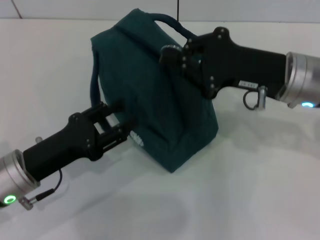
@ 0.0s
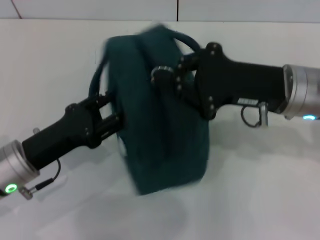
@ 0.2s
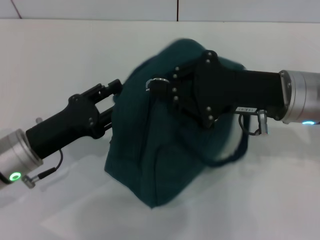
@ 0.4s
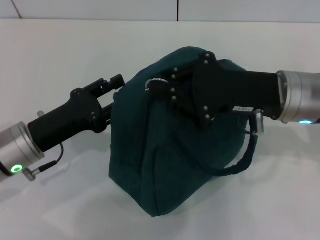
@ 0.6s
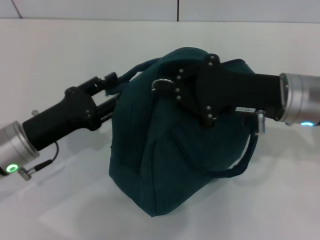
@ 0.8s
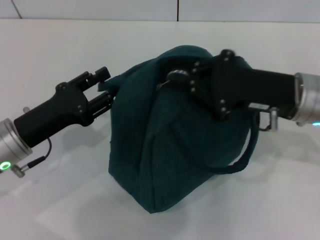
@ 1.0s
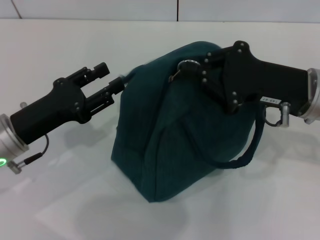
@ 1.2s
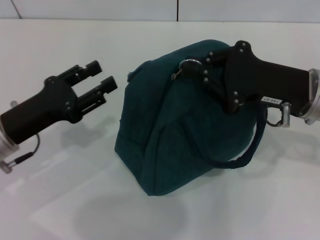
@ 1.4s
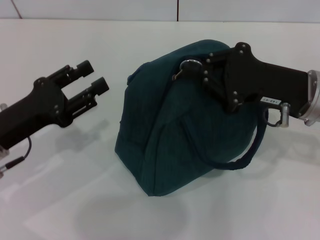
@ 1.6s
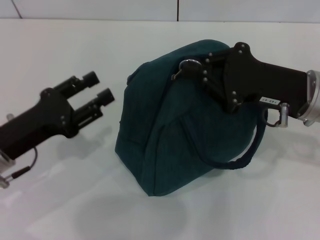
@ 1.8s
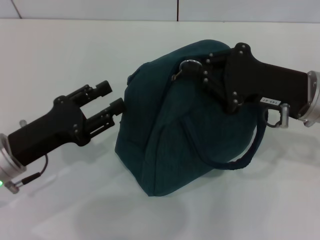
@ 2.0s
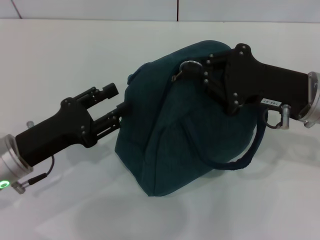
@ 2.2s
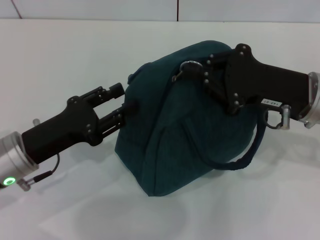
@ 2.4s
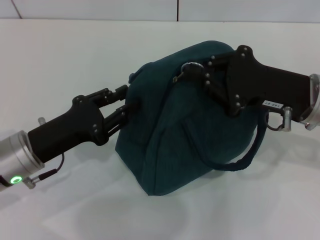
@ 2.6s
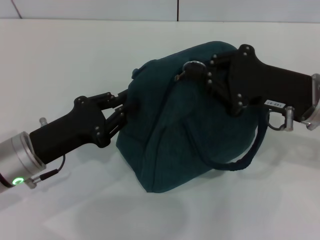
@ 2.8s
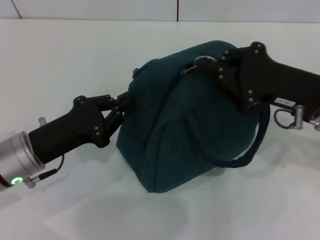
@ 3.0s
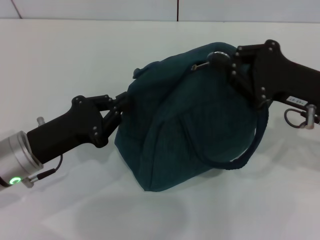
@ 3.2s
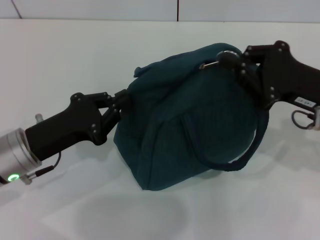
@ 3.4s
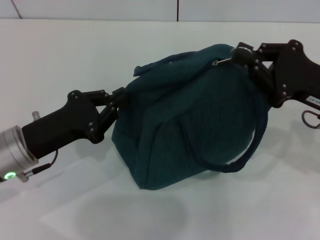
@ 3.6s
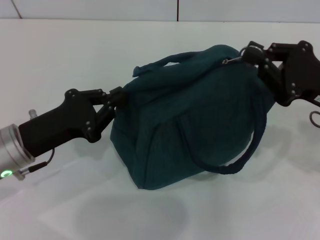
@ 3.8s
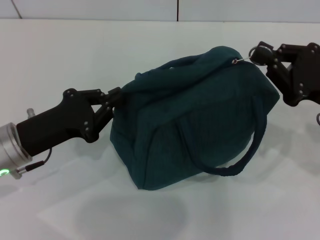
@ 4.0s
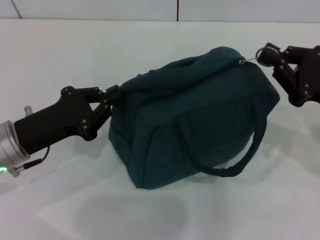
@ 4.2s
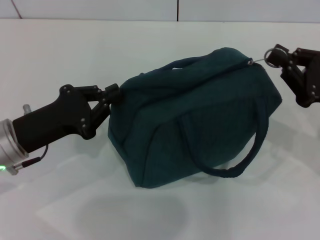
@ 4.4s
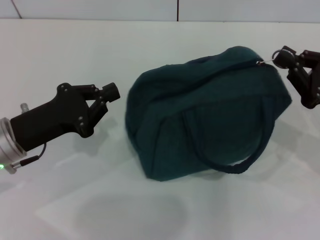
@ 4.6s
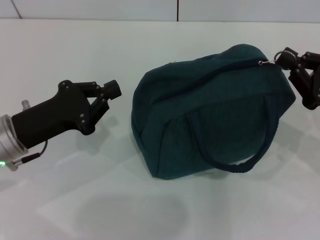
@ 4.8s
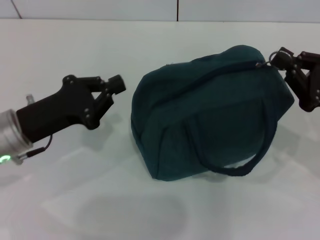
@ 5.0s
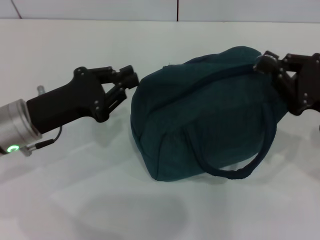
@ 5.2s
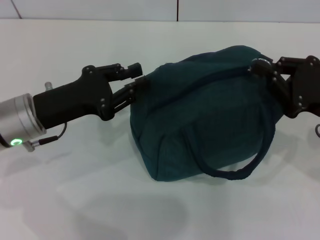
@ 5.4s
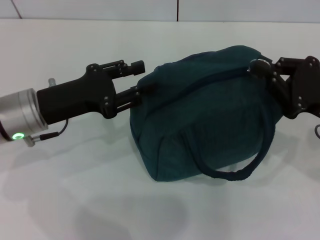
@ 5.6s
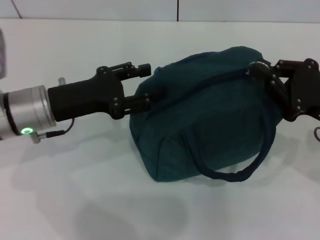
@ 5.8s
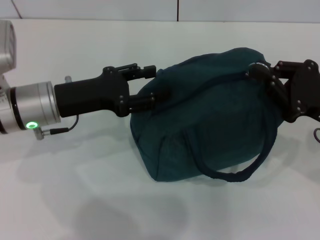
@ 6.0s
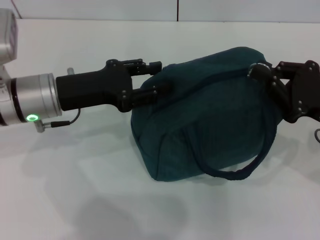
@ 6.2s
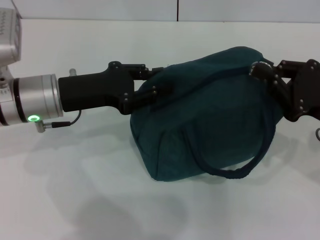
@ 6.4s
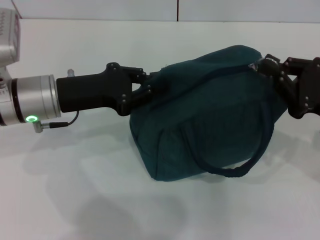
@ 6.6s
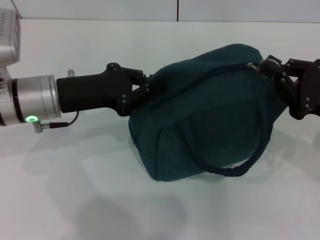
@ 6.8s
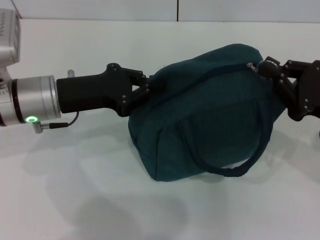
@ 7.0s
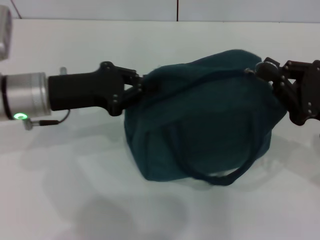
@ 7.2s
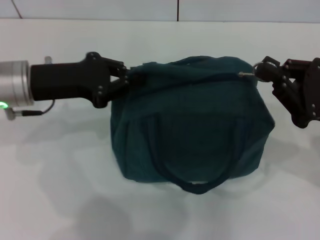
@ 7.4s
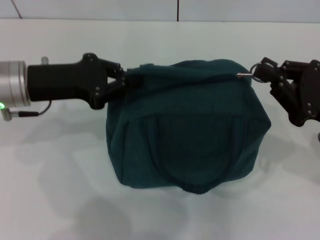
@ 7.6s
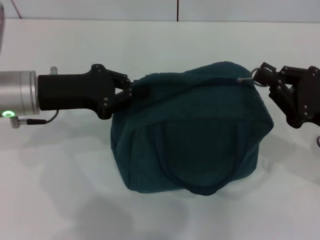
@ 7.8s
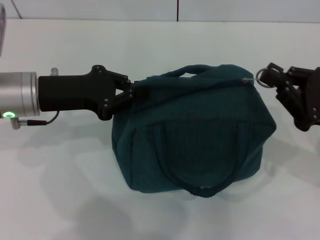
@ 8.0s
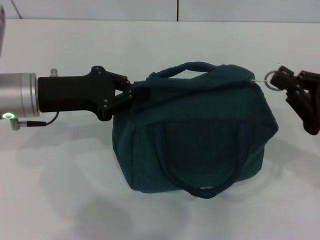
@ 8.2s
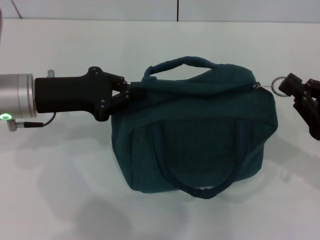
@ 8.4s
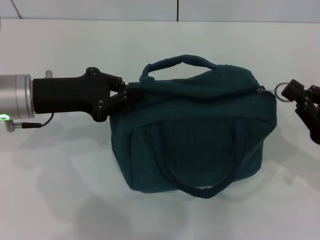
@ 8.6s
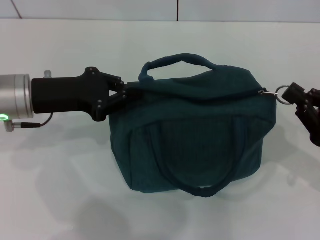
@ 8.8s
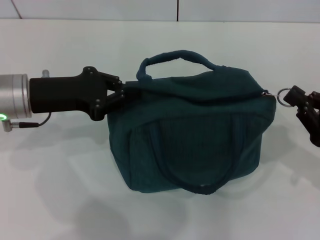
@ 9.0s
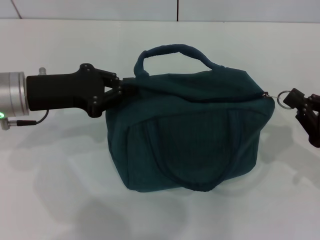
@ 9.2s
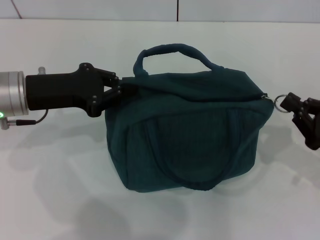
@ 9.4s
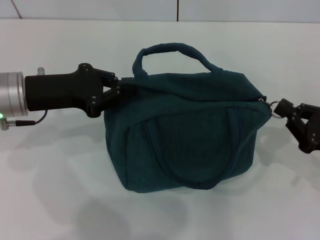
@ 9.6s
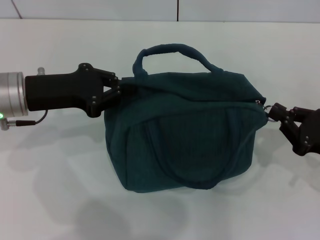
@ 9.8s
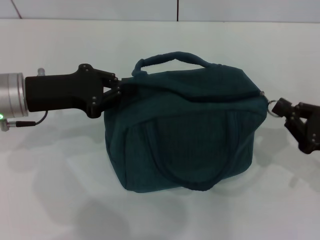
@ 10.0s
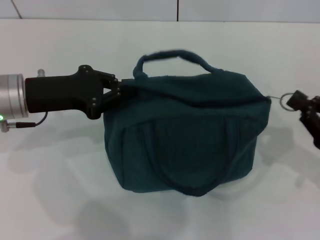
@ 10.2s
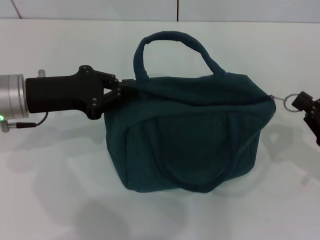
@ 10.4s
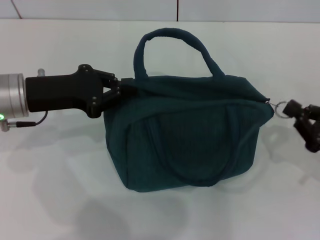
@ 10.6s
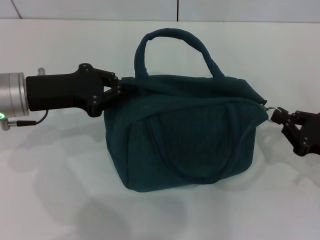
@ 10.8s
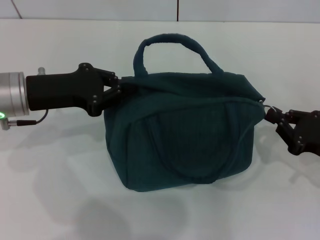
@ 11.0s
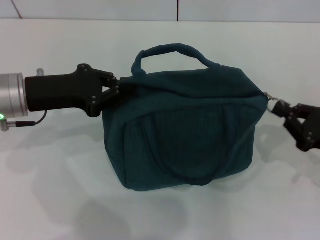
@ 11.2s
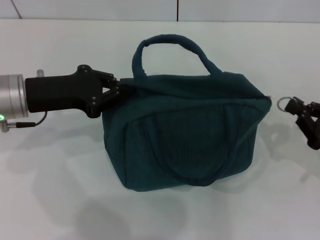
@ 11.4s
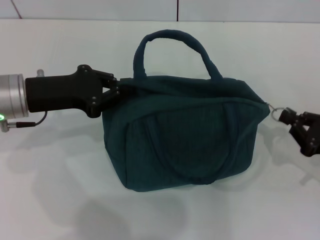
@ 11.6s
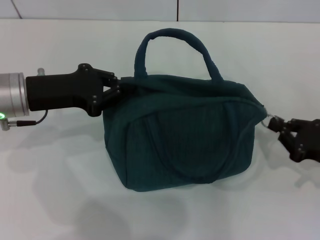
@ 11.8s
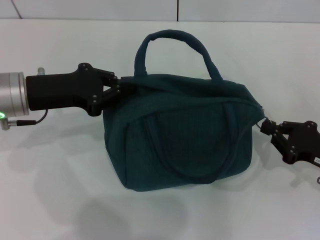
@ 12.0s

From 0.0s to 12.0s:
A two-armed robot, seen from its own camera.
From 0.0s to 1.6s: The left gripper moves some 5 cm.
From 1.6s to 3.0s: The left gripper closes up.
From 3.0s to 4.4s: The right gripper goes some 5 cm to the right.
From 4.4s to 6.0s: The left gripper heads forward, covering approximately 5 cm, and opens.
From 6.0s to 7.6s: The left gripper closes.
From 7.6s to 9.0s: The right gripper ends up approximately 5 cm from where it was.
From 9.0s to 12.0s: The grippers make only small movements.

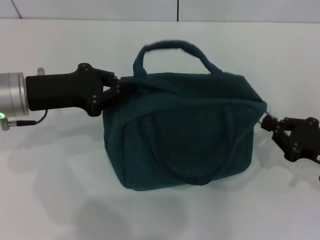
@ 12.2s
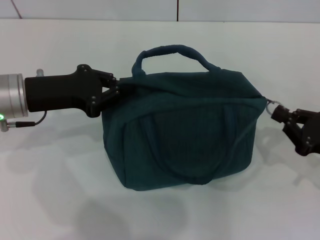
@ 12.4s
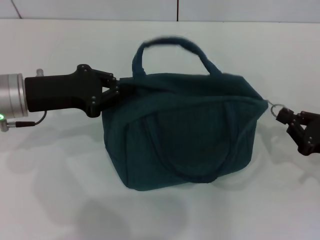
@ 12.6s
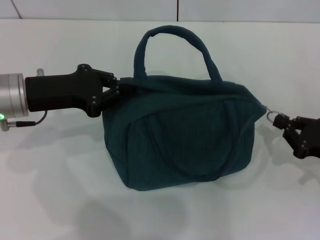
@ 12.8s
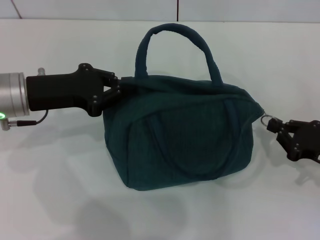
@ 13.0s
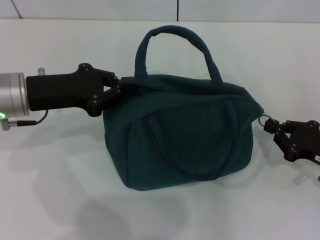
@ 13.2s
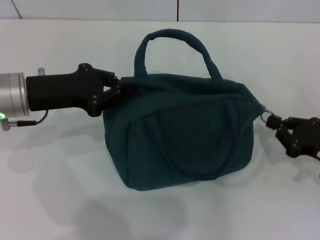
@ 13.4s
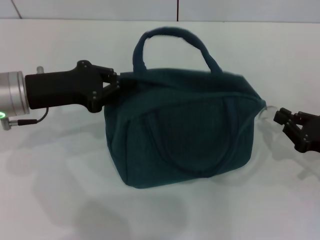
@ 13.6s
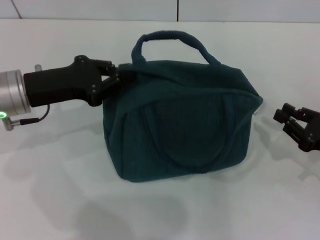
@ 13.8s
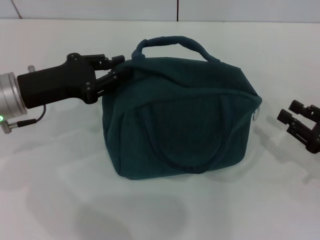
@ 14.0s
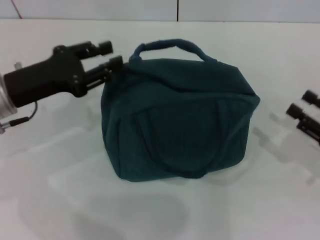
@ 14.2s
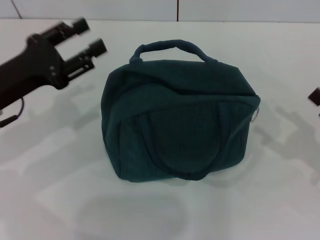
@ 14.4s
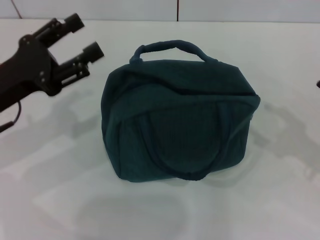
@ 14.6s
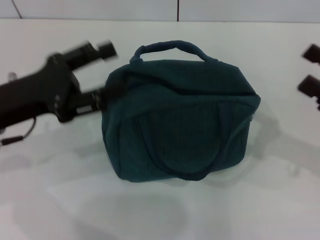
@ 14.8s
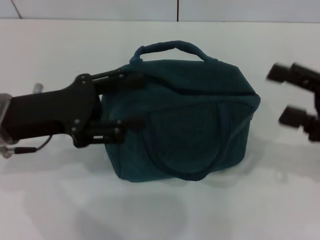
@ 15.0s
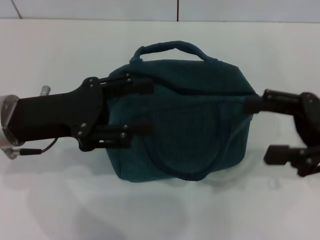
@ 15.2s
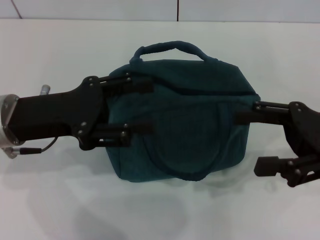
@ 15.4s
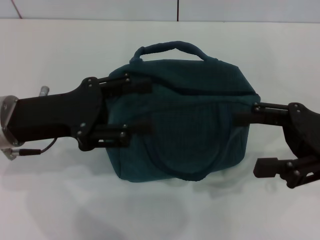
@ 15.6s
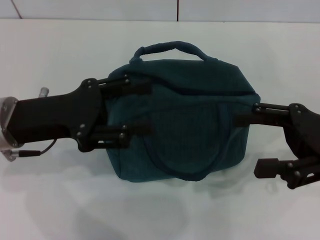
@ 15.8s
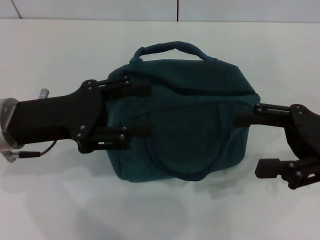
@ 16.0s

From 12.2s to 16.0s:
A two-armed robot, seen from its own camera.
Step, from 13.8s to 14.0s: Hold the lunch bag with your left hand.
From 12.2s to 13.4s: The grippers move only a little.
From 13.4s to 14.8s: The left gripper moves backward, some 5 cm, and opens up; the right gripper travels upward by approximately 10 cm, and opens its fingers.
From 14.8s to 16.0s: The right gripper changes place by about 5 cm.

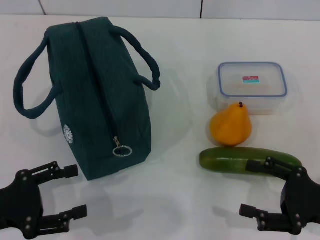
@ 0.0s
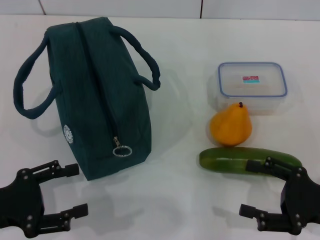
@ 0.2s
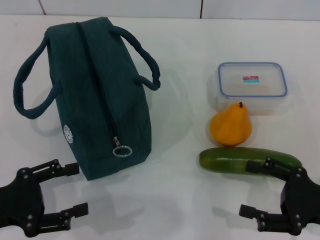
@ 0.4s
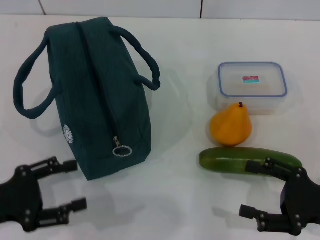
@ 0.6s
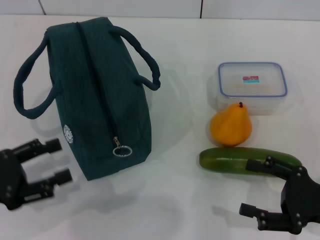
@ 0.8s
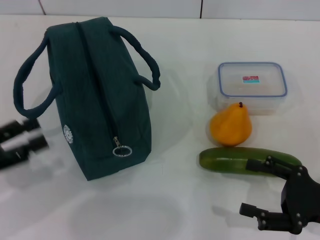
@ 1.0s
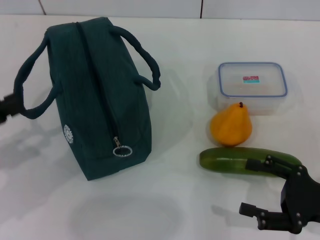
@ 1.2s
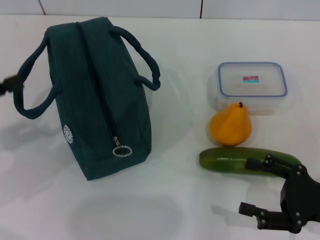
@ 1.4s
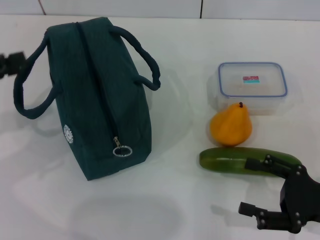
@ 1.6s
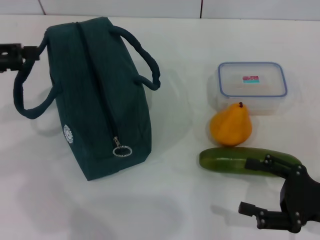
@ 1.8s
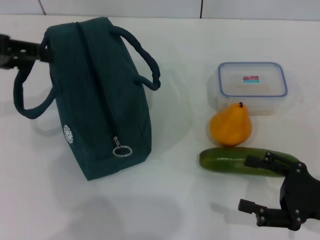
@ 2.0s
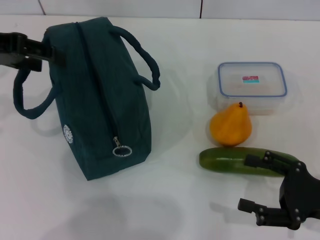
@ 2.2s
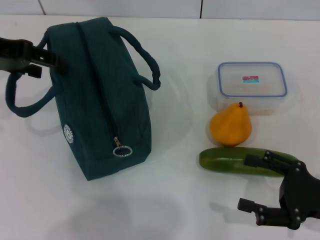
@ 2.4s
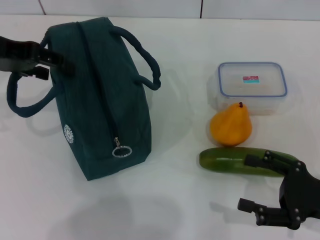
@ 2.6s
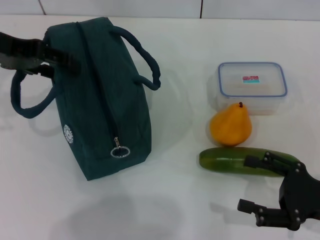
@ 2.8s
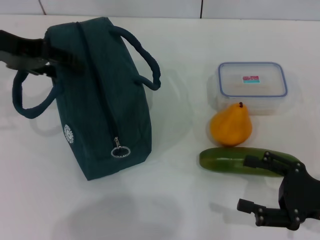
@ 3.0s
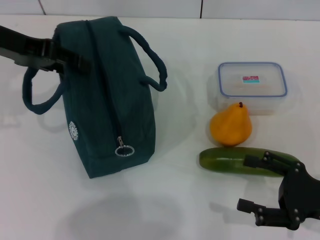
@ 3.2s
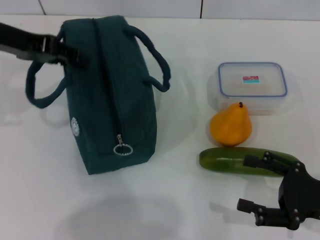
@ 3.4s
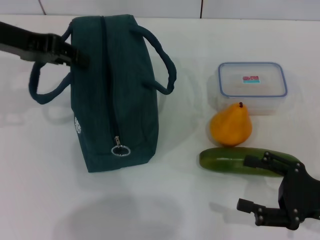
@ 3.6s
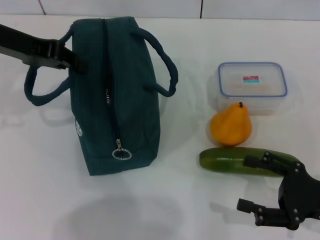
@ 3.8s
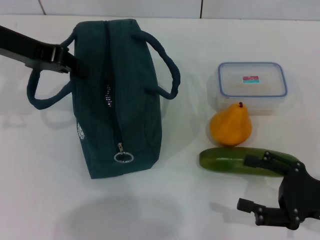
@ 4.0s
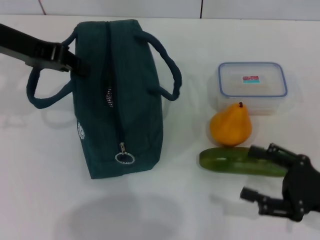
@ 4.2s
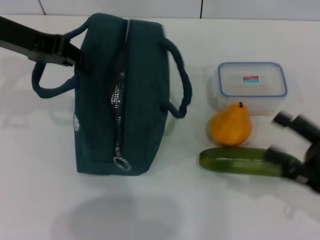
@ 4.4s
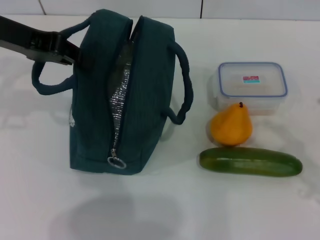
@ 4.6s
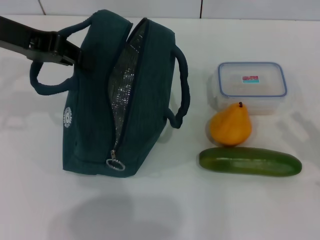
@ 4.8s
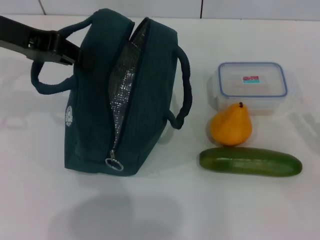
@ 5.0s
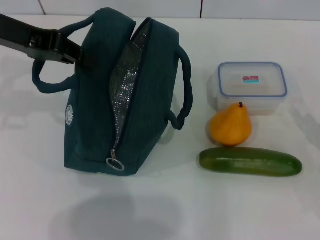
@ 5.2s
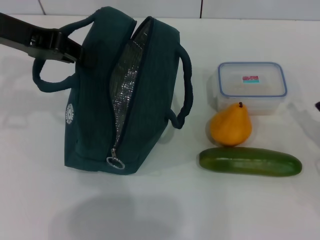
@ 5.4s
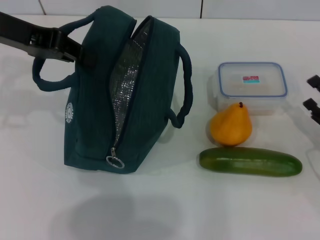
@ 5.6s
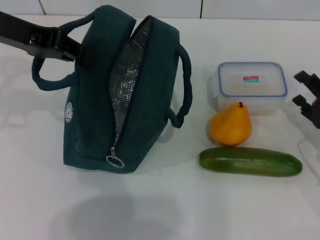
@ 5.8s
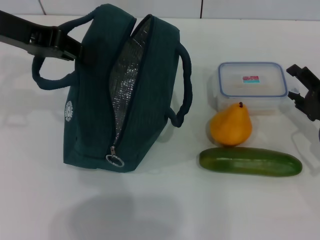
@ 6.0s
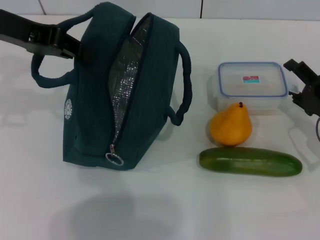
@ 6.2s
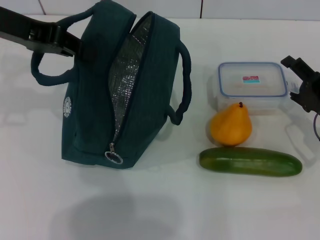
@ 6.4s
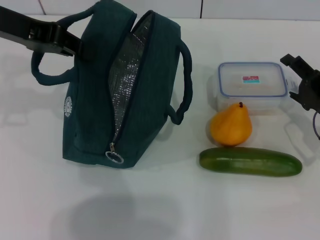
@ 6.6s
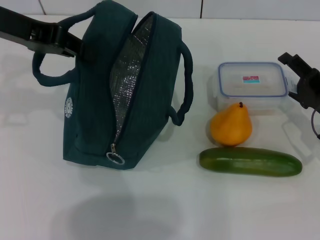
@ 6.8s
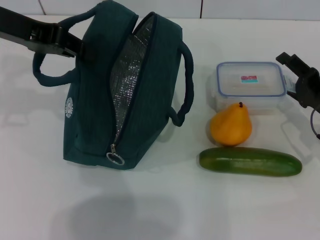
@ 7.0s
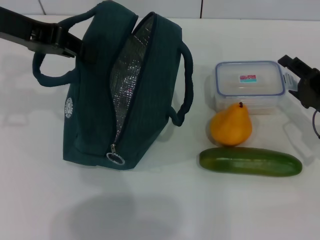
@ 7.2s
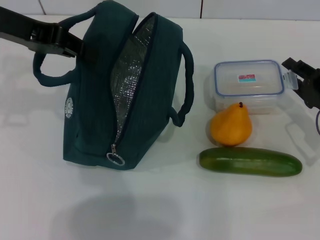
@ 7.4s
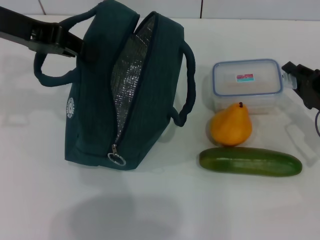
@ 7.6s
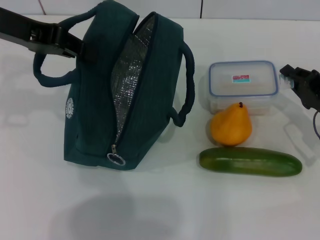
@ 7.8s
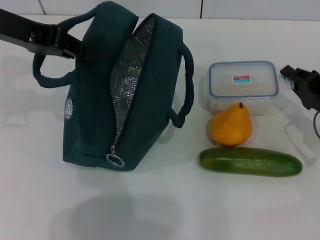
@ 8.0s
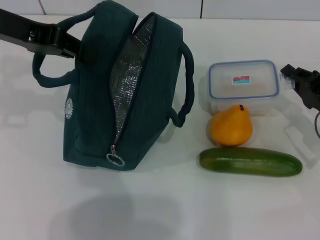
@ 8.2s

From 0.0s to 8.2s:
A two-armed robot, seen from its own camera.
Step, from 0.0s to 4.2s: Hold the lunch bag with your left hand.
From 0.0s to 1.6s: The left gripper travels upward, forward and to the left by approximately 15 cm.
From 1.6s to 3.2s: The left gripper is displaced forward, to the right and upward by about 15 cm.
From 3.2s to 5.0s: The right gripper shifts roughly 5 cm to the right, while the left gripper closes.
From 5.0s to 6.6s: The right gripper is displaced forward and to the left by approximately 10 cm.
From 6.6s to 8.2s: The right gripper closes.
